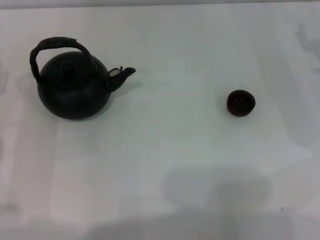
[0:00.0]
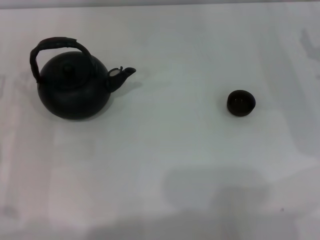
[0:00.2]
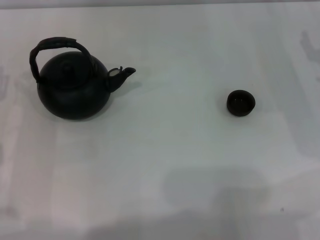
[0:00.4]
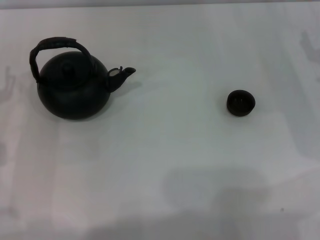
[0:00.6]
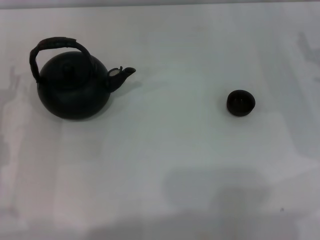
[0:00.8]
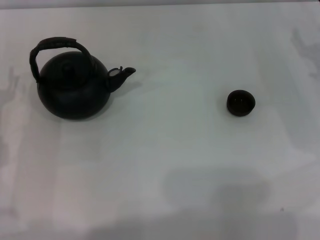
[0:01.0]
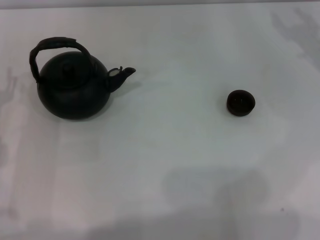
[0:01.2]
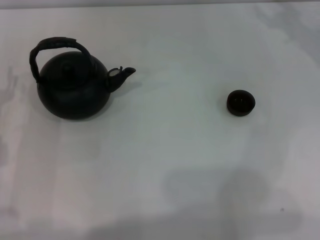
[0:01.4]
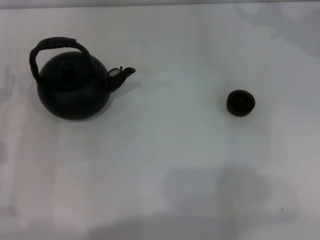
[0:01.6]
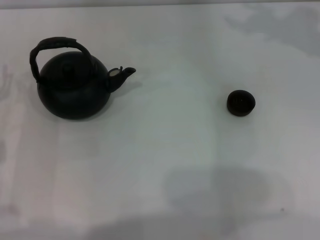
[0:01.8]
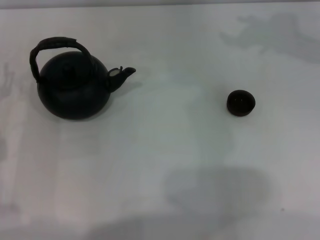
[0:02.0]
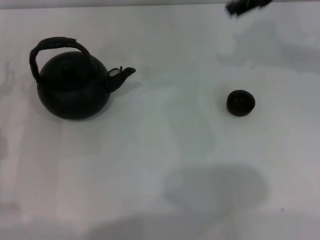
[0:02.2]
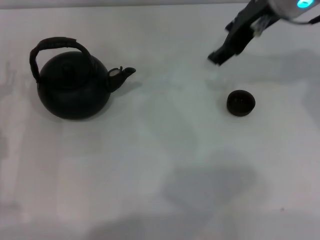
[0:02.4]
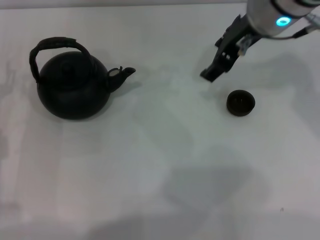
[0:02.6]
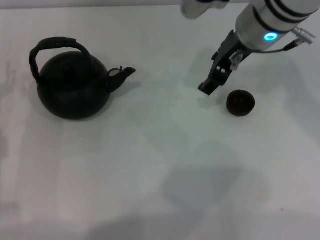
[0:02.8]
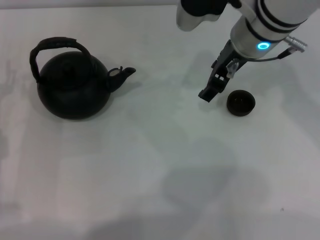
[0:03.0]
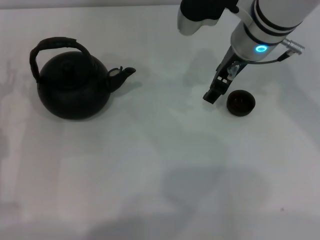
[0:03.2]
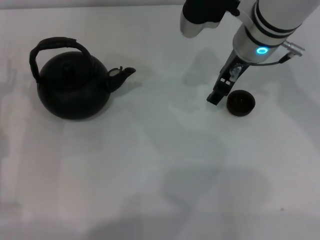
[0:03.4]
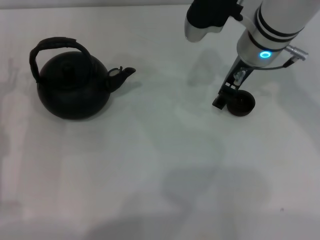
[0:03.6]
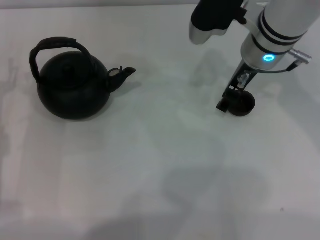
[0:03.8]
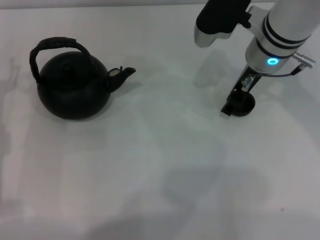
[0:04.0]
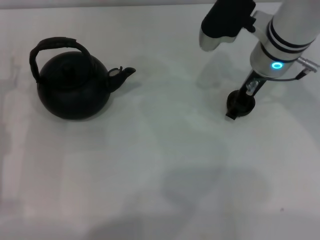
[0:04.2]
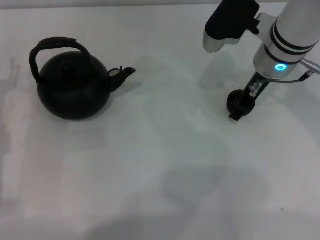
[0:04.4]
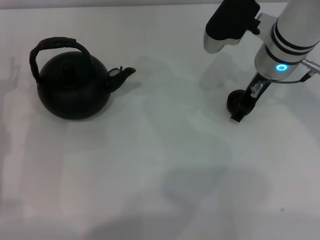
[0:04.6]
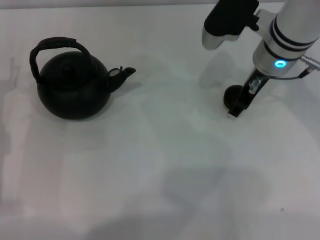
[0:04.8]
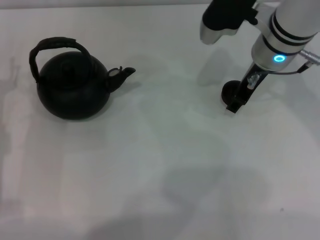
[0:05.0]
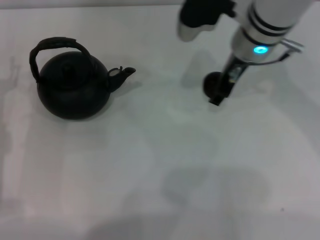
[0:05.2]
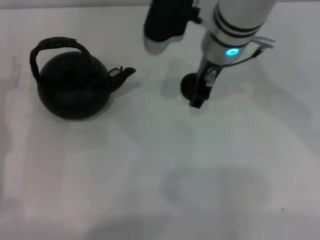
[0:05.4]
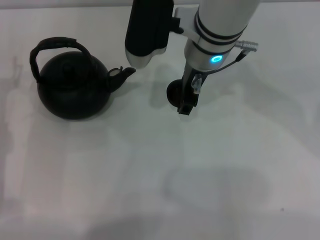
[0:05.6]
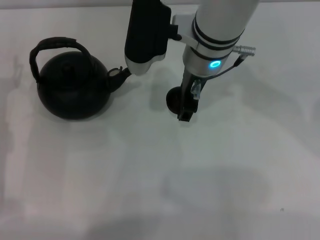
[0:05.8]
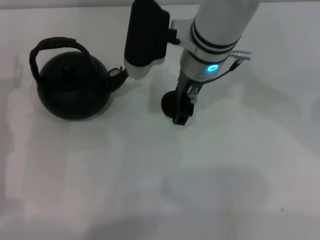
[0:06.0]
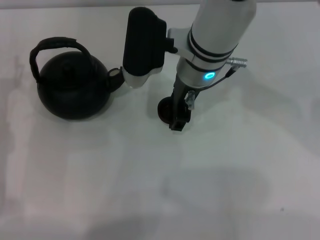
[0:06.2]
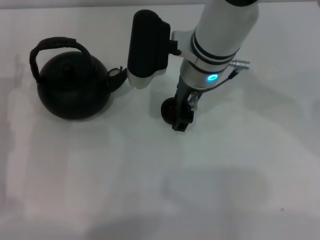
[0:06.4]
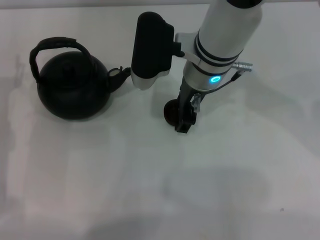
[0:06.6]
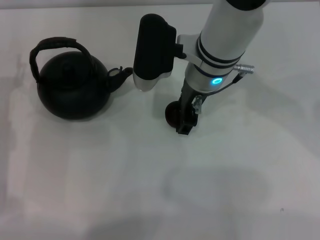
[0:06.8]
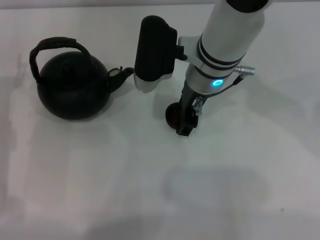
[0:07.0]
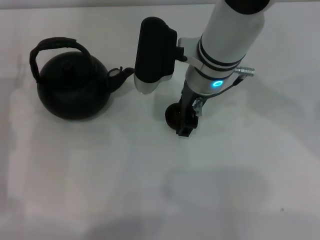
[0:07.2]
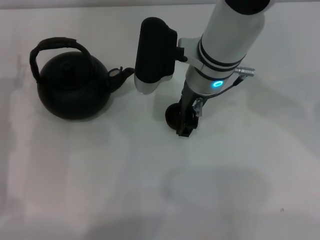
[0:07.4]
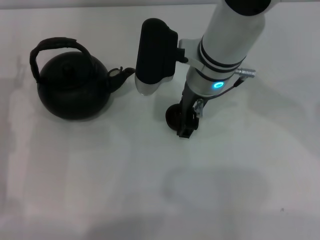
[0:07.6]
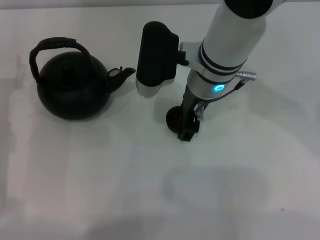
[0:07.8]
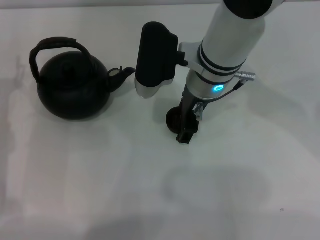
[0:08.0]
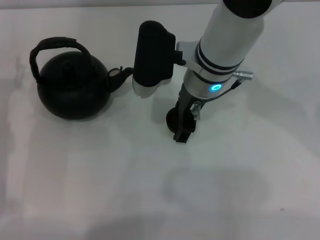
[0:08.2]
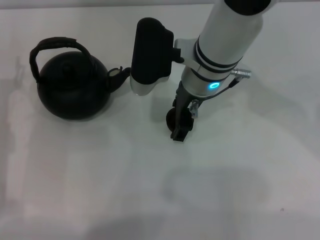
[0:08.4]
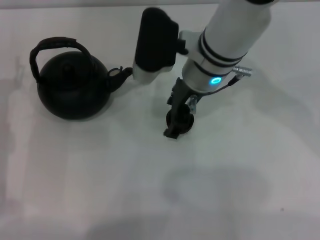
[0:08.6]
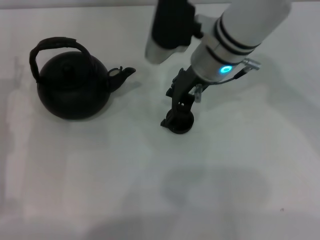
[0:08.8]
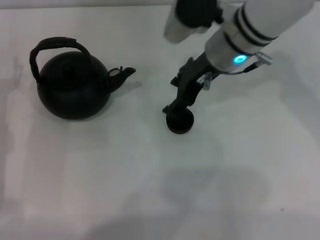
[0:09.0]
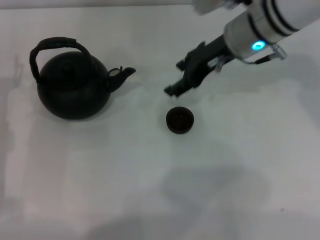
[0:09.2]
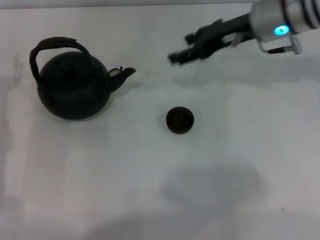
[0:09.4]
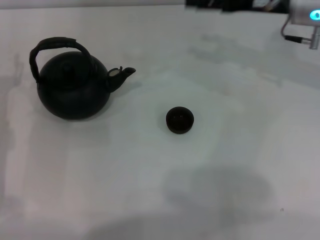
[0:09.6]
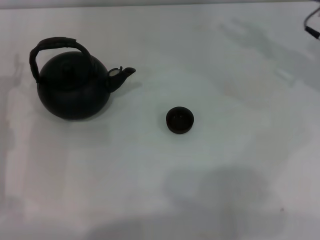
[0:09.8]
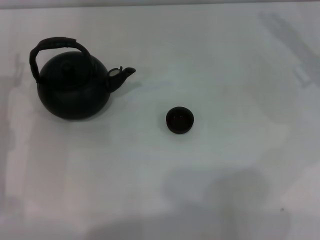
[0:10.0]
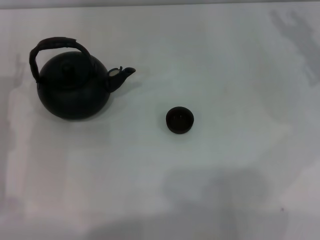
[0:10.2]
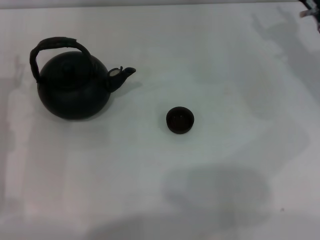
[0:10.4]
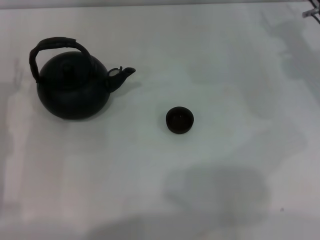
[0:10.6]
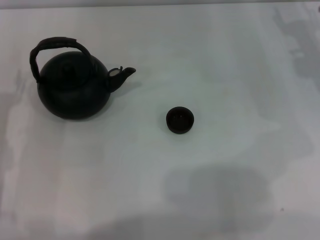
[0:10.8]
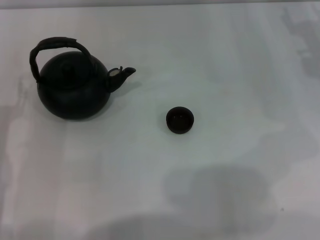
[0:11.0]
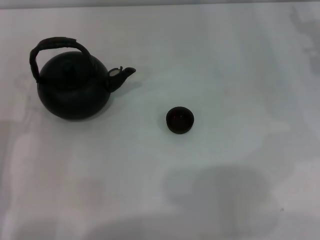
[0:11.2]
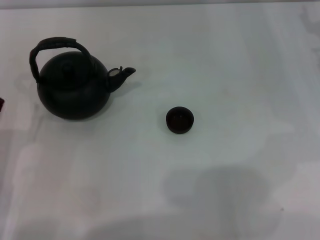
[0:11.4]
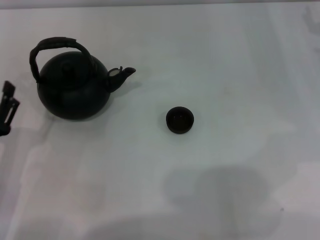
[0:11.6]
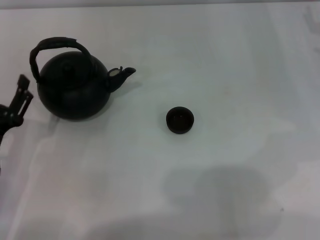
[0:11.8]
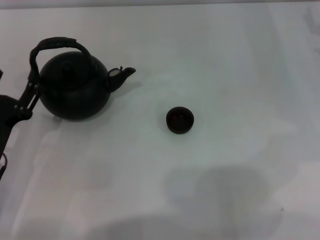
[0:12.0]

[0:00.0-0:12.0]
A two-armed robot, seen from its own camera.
Task of the whole recording: Grasp the handle of the teapot with one hand and pour tea into the teacup.
Step, 0:00.0 to 0:05.4: Pick up the teacup with the right gripper.
Step, 0:05.6 to 0:08.8: Place the teacup in the center of view with the right gripper.
0:01.6 to 0:03.0: The right gripper heads to the left, covering about 15 cm.
0:03.0 to 0:04.4: The right gripper ends up roughly 5 cm from where it was.
0:04.4 to 0:06.0: The right gripper goes roughly 10 cm to the left, and closes.
0:06.0 to 0:07.6: The grippers stay close to where they were, moving slightly.
0:07.6 to 0:09.0: The right gripper changes place by some 5 cm, and opens up.
0:09.0 to 0:10.4: The right gripper is displaced to the right by some 20 cm.
0:10.4 to 0:12.0: The left gripper moves backward, roughly 5 cm.

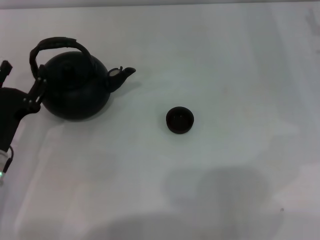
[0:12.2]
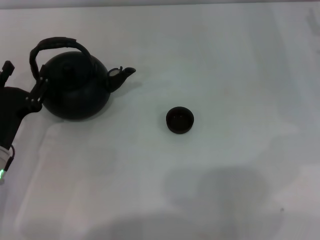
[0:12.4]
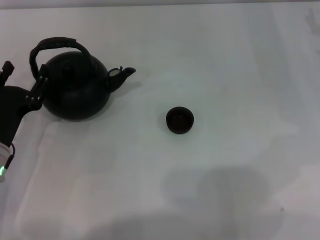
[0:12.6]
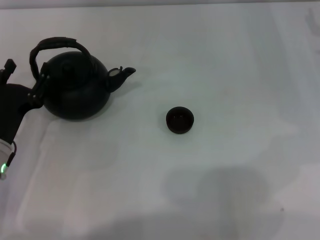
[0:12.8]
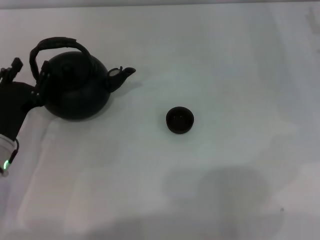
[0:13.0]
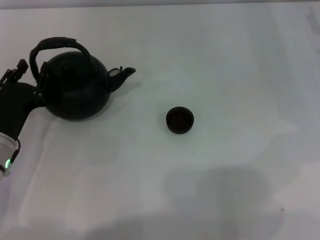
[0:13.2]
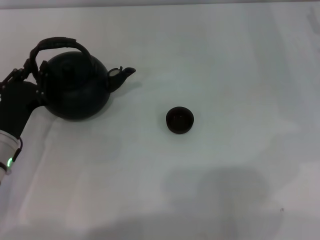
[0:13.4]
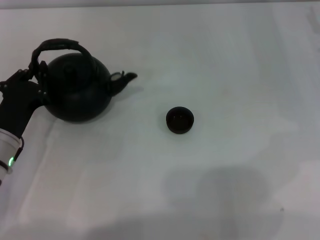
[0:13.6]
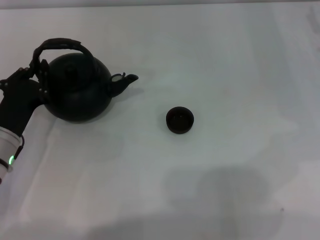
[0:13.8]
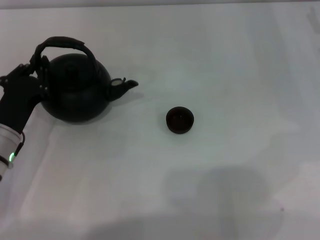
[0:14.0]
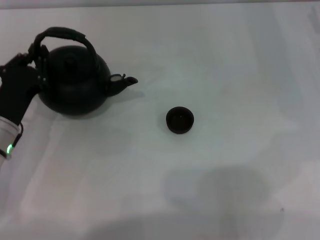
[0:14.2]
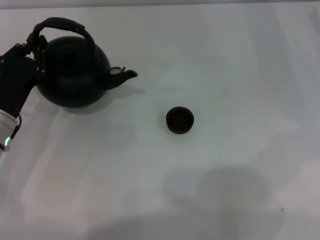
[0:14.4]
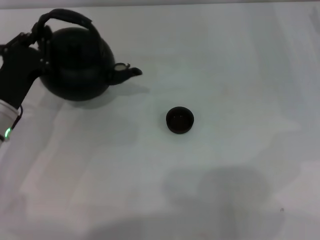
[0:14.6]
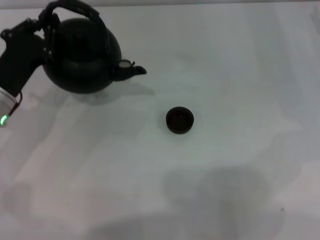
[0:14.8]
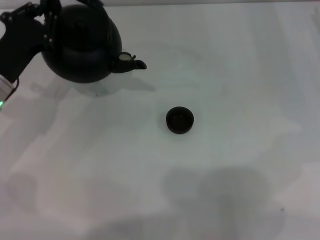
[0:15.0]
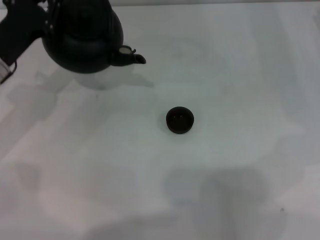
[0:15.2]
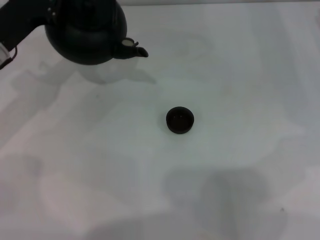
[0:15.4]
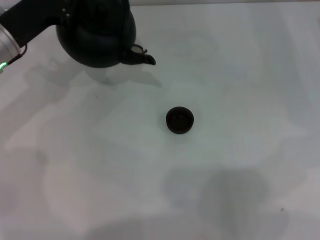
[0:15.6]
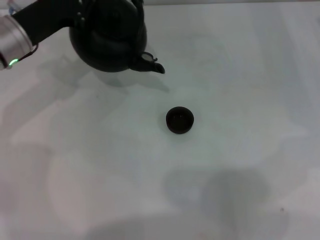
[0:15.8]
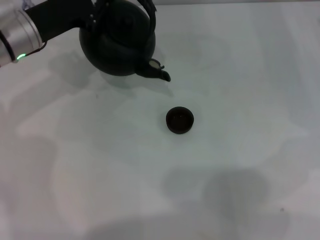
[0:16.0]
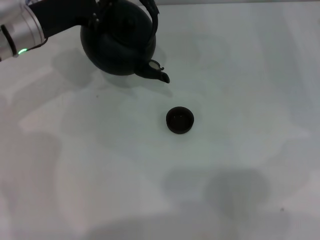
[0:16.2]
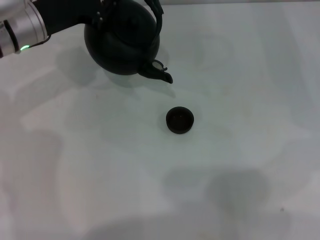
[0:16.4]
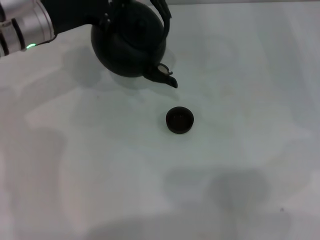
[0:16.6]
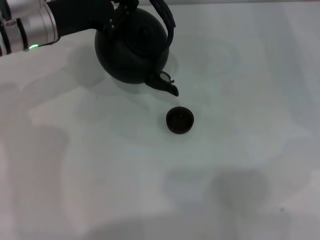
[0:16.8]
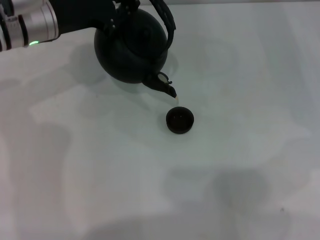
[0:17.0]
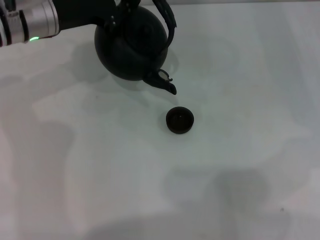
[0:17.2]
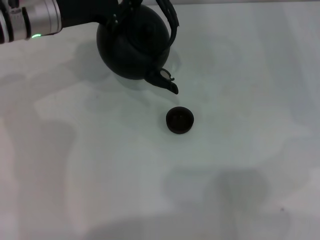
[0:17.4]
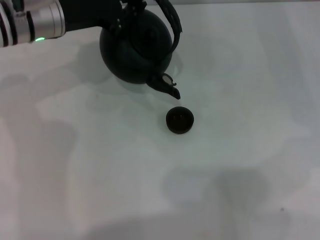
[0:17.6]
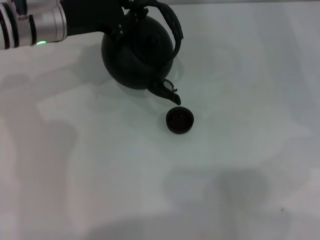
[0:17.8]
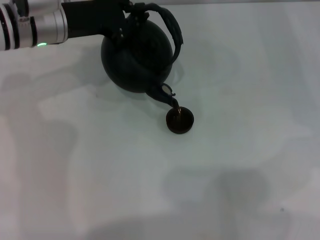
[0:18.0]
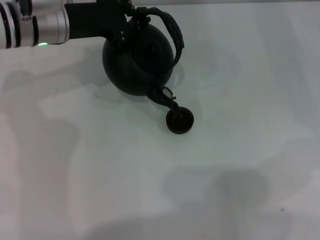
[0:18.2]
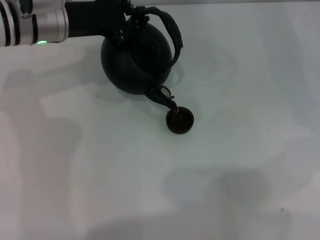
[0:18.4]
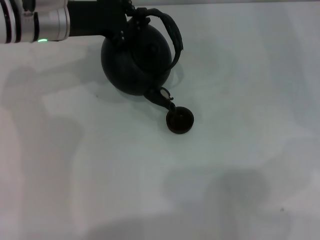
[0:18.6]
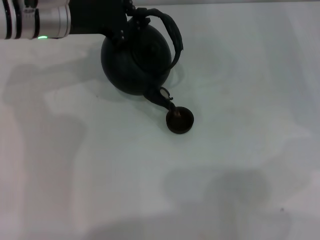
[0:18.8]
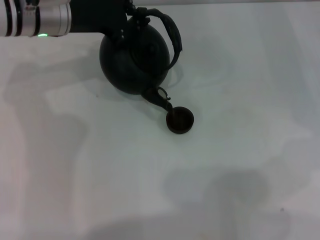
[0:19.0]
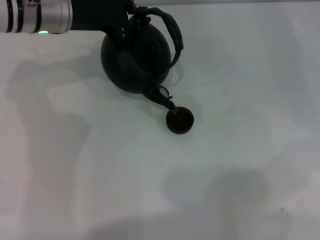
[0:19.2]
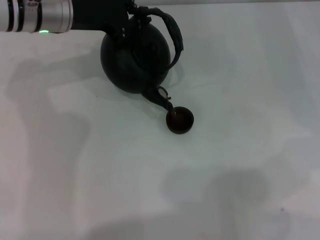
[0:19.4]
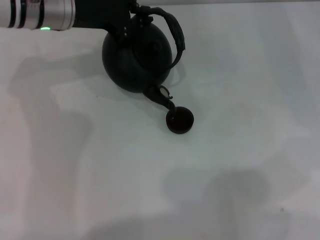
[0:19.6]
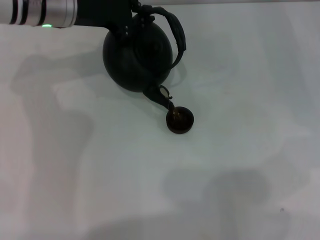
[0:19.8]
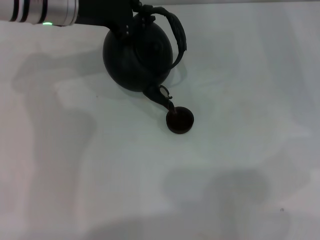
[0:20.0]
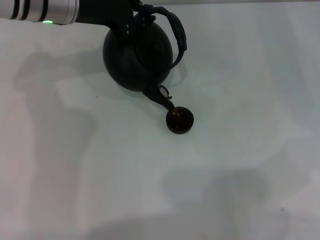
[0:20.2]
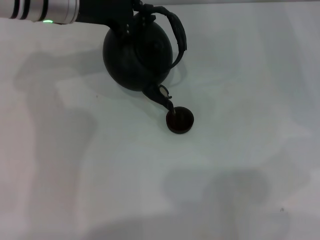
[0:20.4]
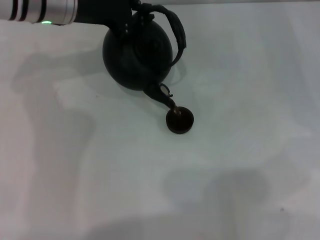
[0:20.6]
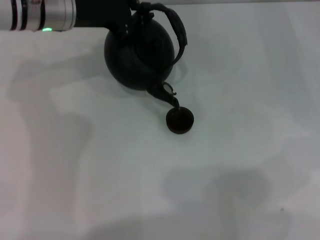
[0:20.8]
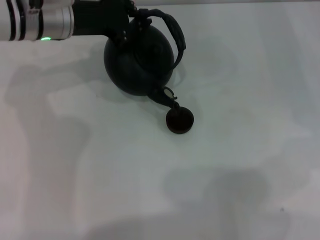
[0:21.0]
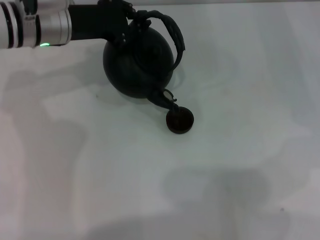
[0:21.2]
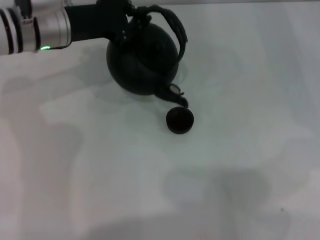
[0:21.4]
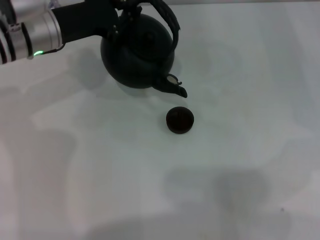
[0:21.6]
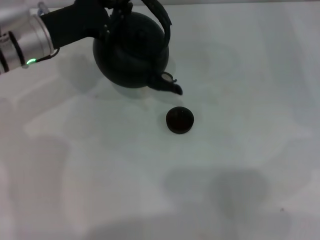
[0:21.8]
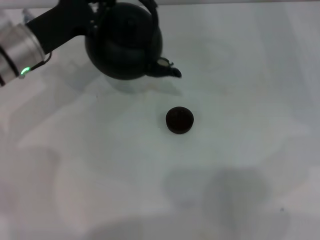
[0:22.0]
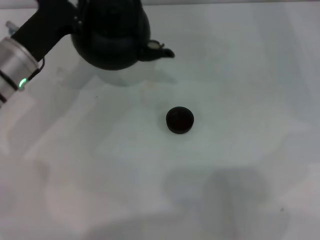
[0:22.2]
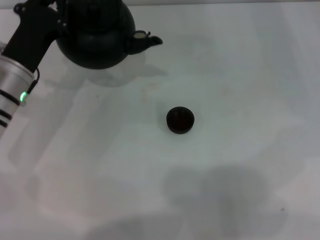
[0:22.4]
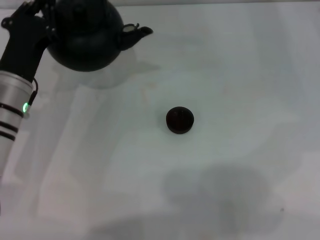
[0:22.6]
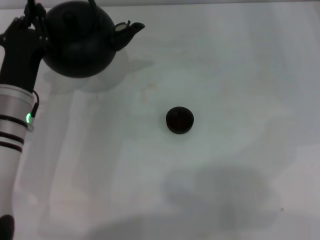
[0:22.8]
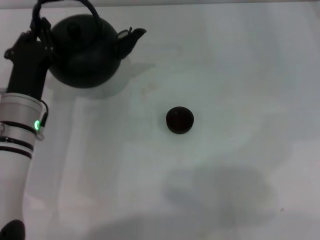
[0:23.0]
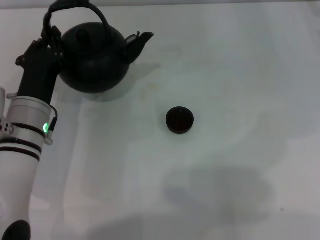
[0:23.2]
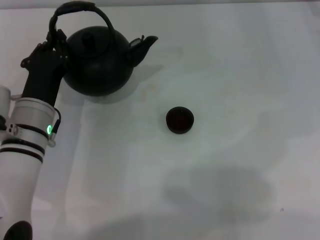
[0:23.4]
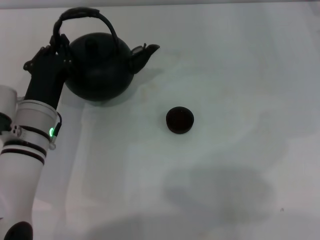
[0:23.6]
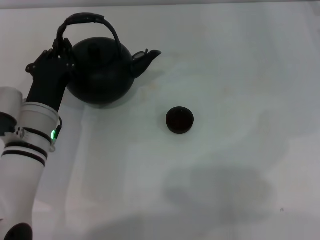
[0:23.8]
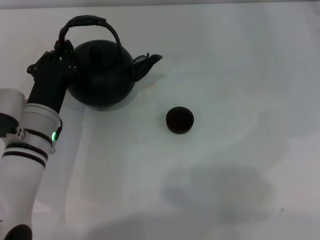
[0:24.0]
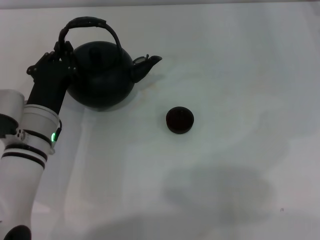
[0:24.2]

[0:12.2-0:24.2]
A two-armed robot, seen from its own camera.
Task of the whole recording: Grasp the handle of the teapot with one hand and pour tea into the teacup.
Step, 0:12.2 to 0:15.4: Pick up the teapot with the left gripper.
Step, 0:15.8 to 0:21.4: Pour tea into the teacup with the left gripper.
0:12.2 to 0:13.8: The left gripper closes its fingers.
0:13.8 to 0:15.2: The left gripper shifts approximately 10 cm forward and upward.
0:15.2 to 0:16.6: The left gripper travels forward and to the right by about 10 cm.
0:16.6 to 0:18.2: The grippers stay close to where they were, moving slightly.
0:18.2 to 0:21.2: The grippers move only a little.
0:21.2 to 0:22.6: The left gripper shifts about 15 cm backward and downward.
0:22.6 to 0:24.2: The left gripper shifts by roughly 5 cm.
